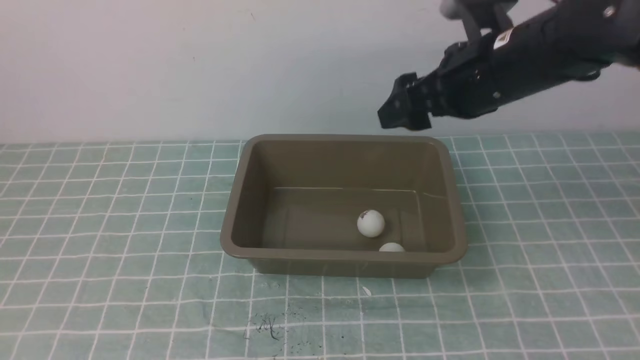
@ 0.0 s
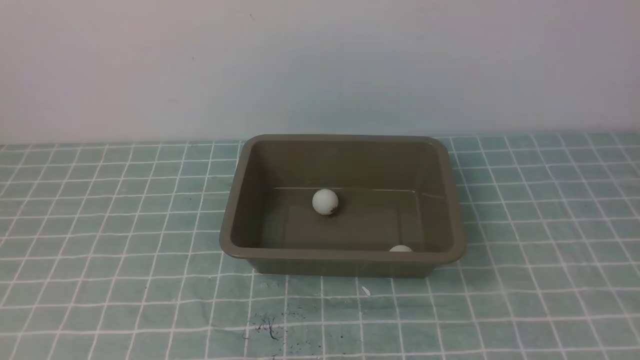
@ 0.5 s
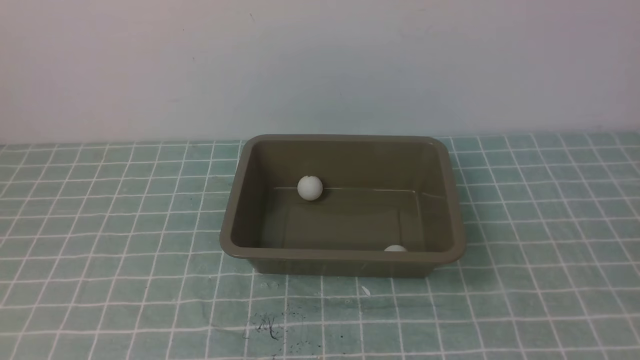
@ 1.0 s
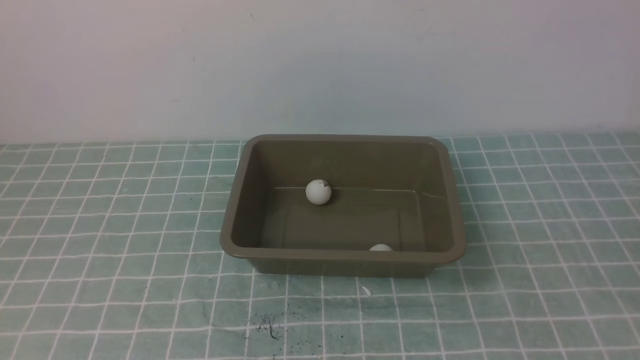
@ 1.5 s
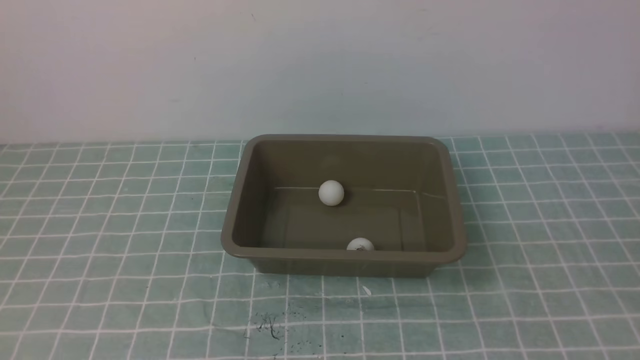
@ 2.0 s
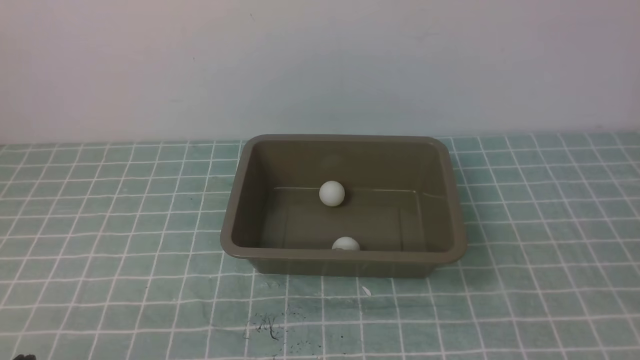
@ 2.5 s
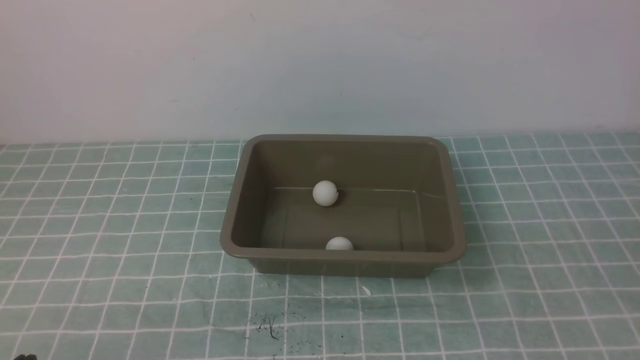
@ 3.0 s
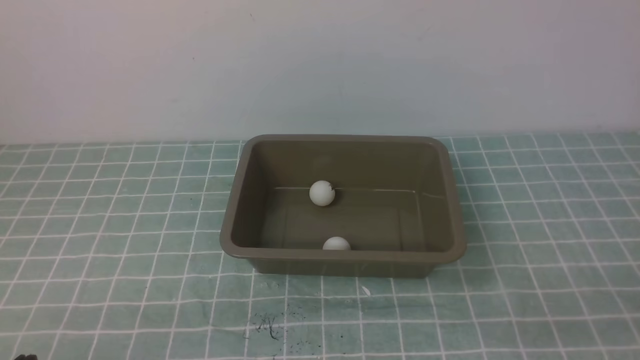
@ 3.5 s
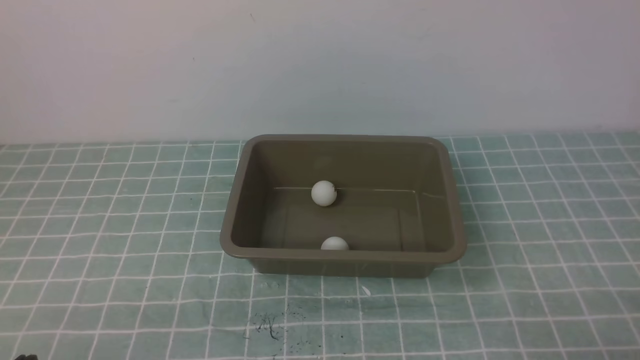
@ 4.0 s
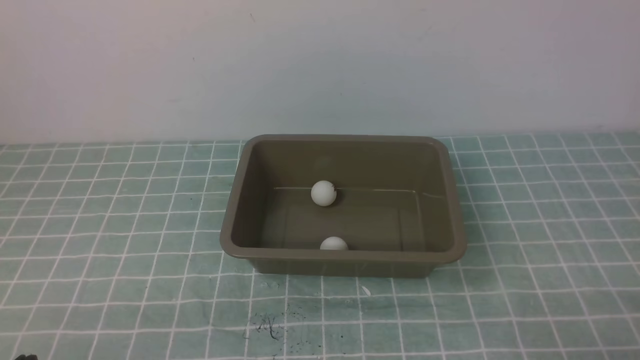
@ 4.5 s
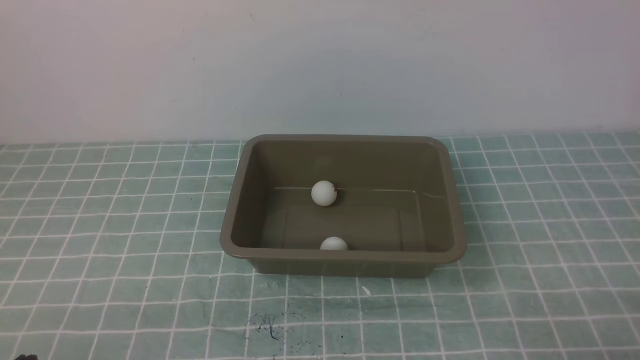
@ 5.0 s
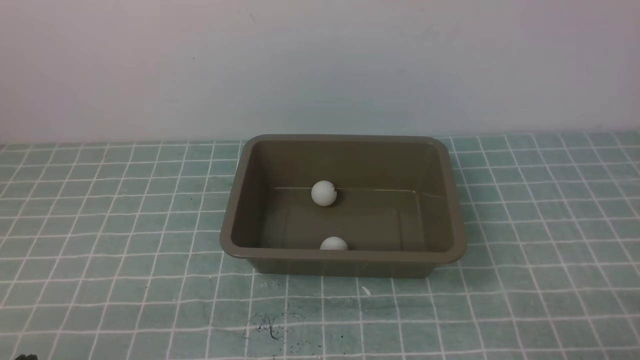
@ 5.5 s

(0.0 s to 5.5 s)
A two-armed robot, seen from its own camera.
0.0 s - 2.0 s: The right gripper goes approximately 30 cm backward and to the right, and closes up, while the left gripper shifts about 5 cm downward.
